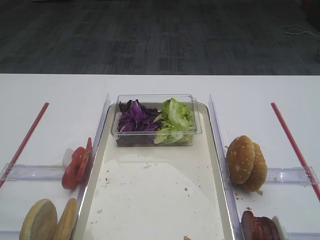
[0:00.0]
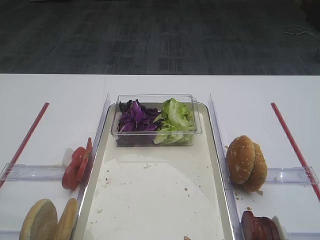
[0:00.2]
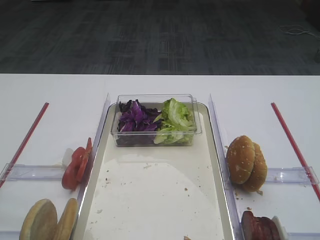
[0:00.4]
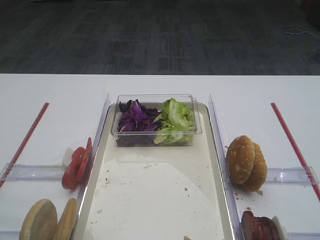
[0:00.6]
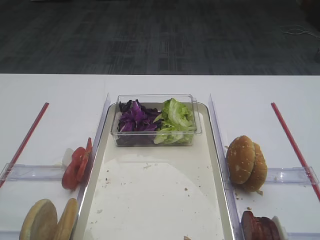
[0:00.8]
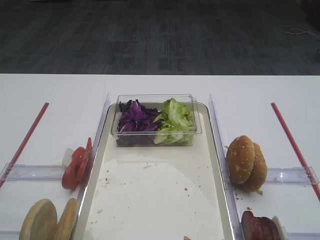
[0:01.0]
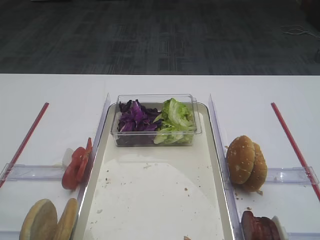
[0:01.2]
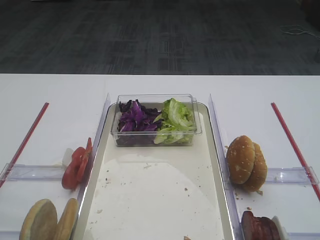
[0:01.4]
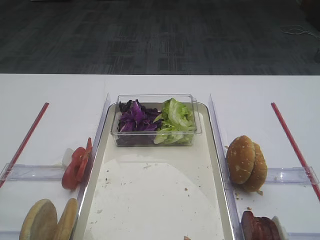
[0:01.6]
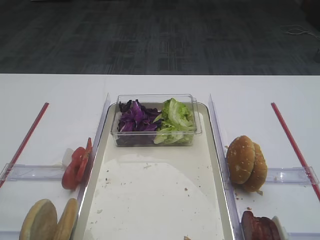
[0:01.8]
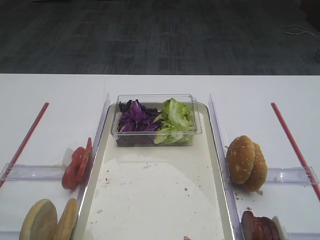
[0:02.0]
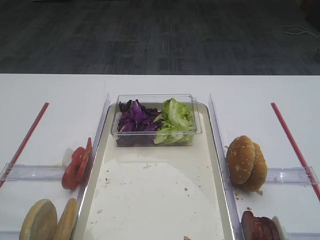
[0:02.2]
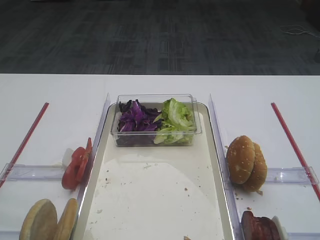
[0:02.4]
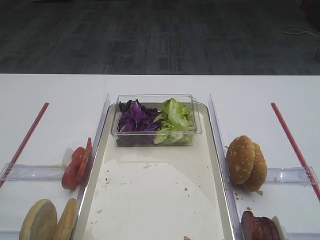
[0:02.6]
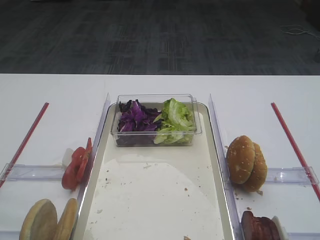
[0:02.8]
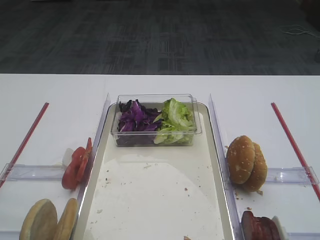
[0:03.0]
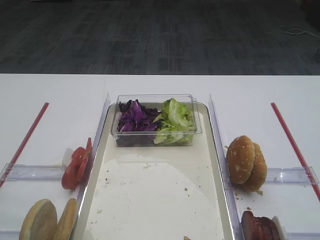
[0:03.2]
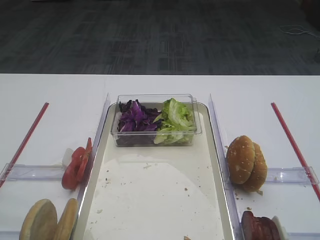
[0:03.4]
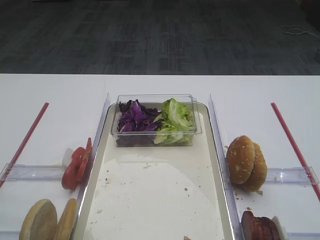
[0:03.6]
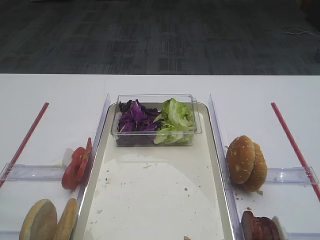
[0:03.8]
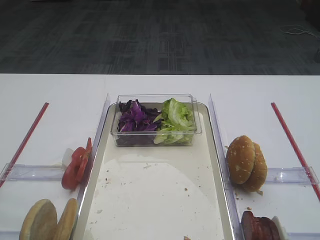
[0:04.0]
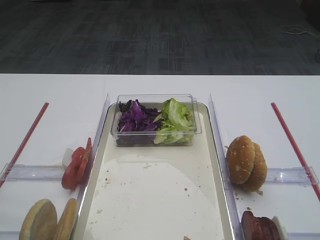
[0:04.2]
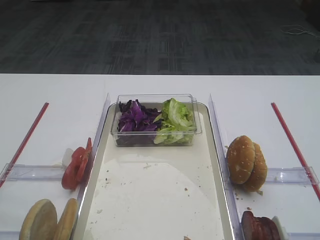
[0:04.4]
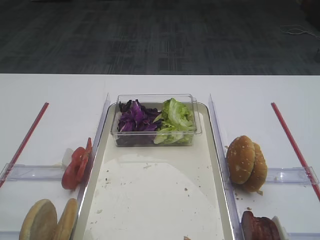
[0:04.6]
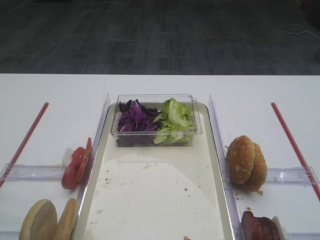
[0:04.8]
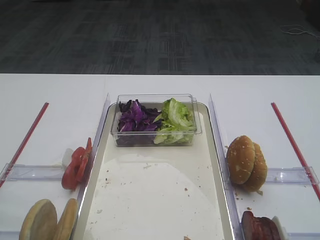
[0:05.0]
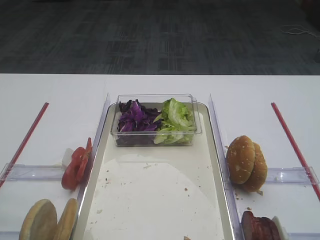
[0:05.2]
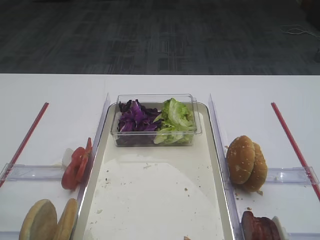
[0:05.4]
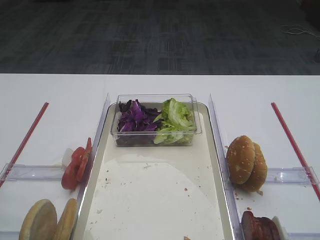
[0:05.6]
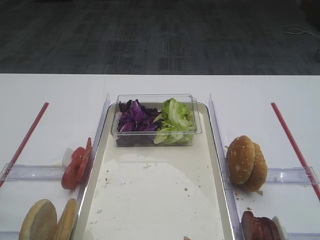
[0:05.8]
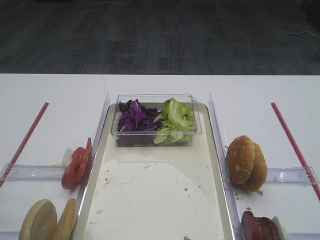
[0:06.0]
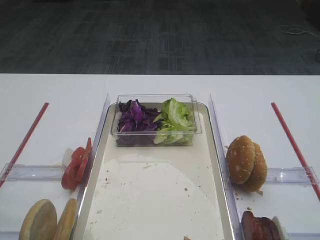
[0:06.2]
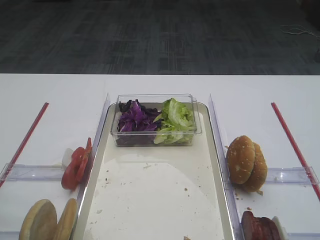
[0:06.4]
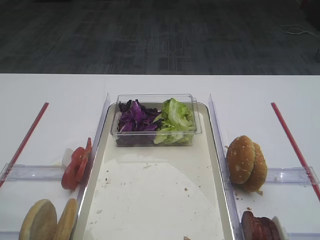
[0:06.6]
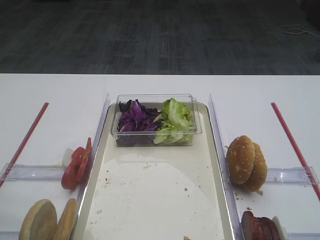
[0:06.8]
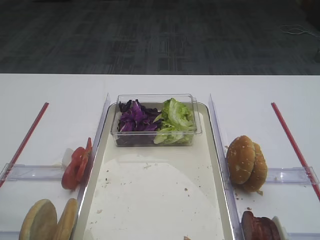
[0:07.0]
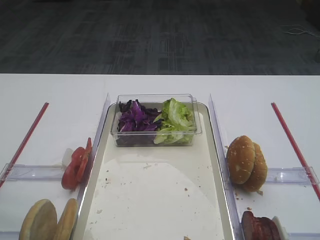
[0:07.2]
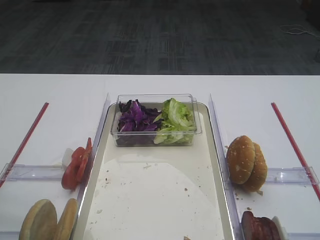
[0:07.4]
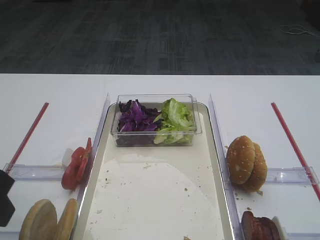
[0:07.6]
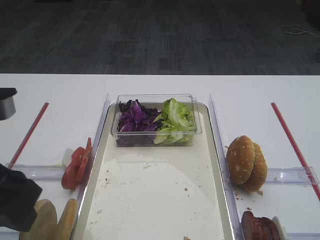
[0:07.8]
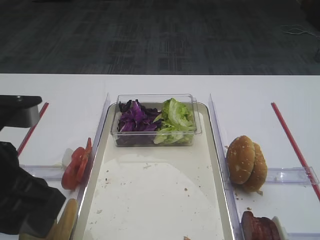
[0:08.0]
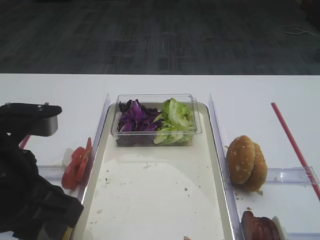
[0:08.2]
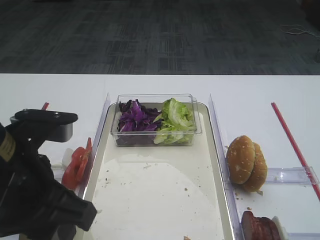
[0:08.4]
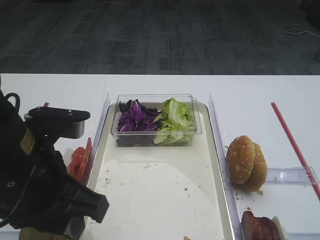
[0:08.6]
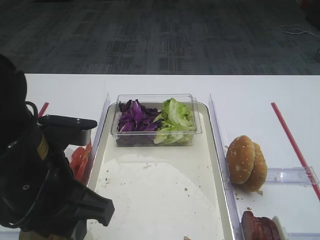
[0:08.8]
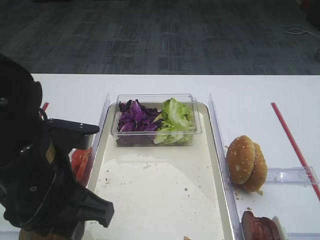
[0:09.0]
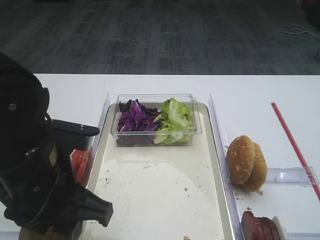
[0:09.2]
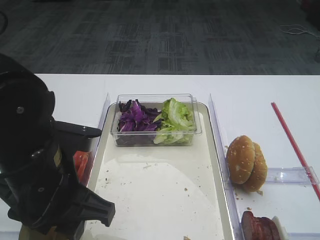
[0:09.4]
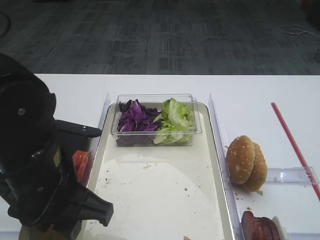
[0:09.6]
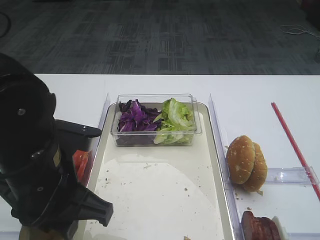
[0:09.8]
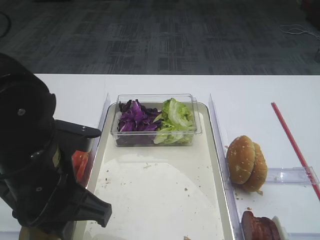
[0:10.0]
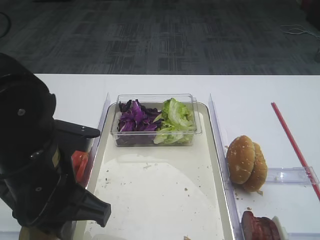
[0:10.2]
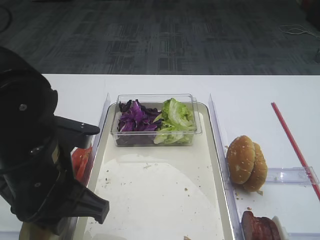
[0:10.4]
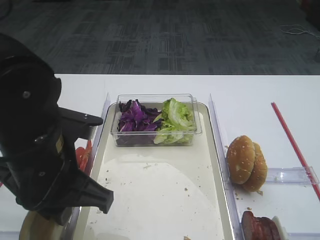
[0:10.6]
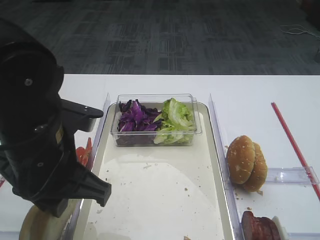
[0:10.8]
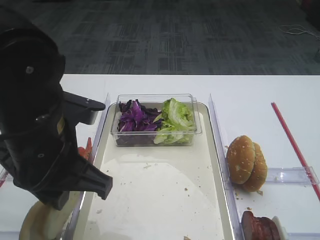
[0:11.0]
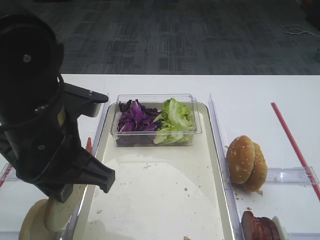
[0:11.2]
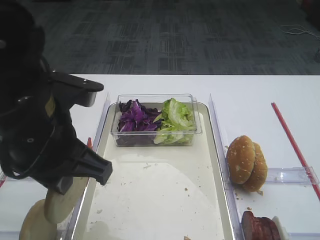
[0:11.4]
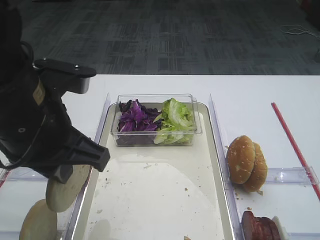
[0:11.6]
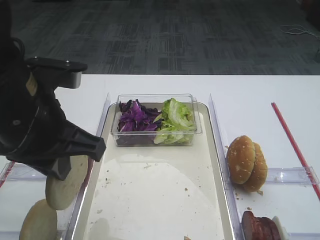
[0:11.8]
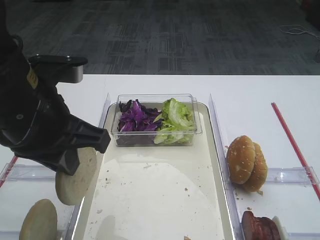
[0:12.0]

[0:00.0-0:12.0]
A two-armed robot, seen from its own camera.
Step, 0:00.0 to 0:11.0: Pick up the bread slice with the left gripper.
0:06.0 to 0:07.6: The left gripper goes about 5 cm to the right.
0:07.6 to 0:09.0: The left gripper goes roughly 10 cm to the right and downward.
0:09.0 to 0:10.4: The left gripper closes.
0:10.4 to 0:12.0: The left gripper shifts some 5 cm upward.

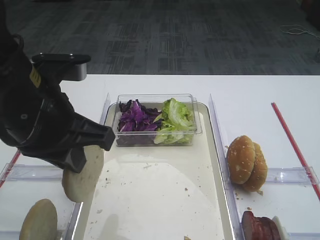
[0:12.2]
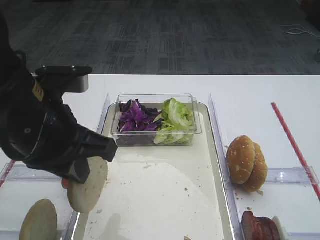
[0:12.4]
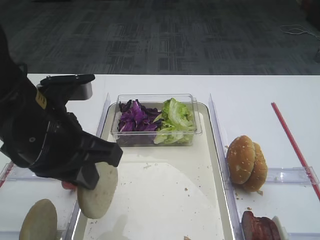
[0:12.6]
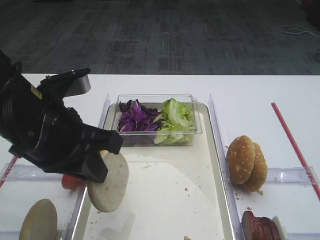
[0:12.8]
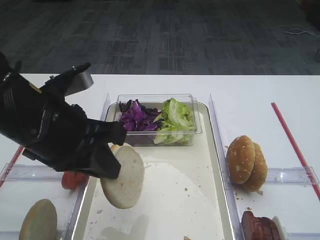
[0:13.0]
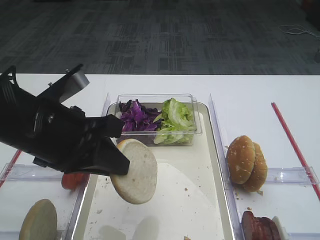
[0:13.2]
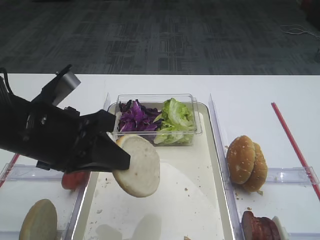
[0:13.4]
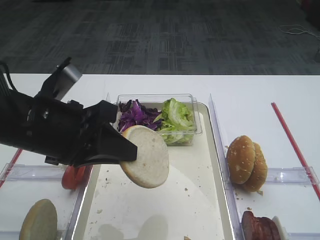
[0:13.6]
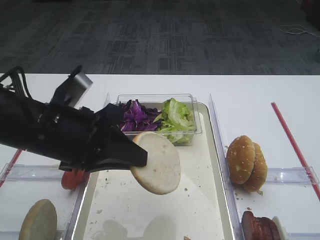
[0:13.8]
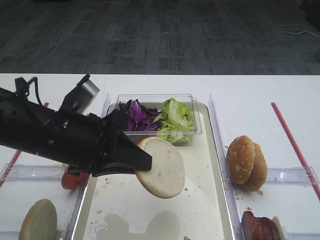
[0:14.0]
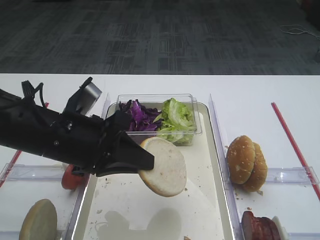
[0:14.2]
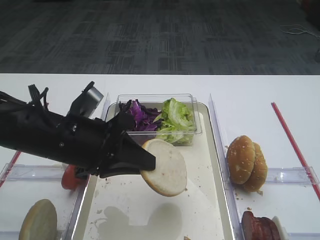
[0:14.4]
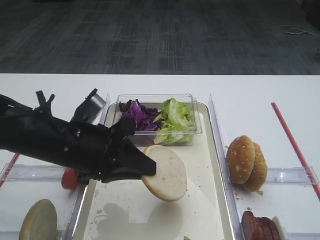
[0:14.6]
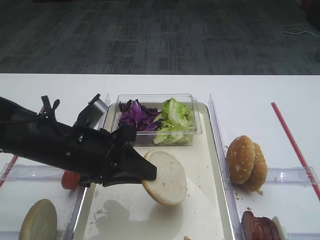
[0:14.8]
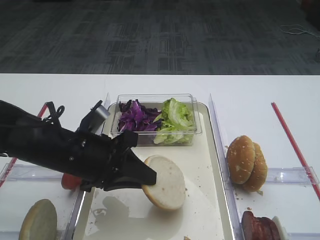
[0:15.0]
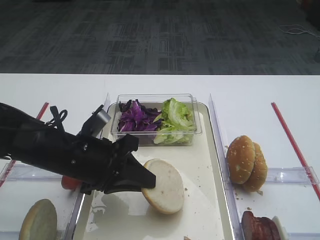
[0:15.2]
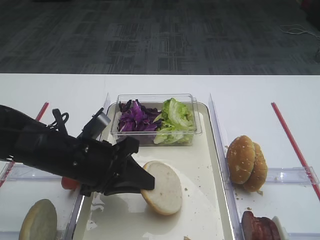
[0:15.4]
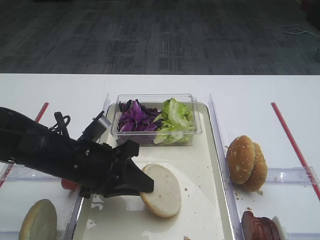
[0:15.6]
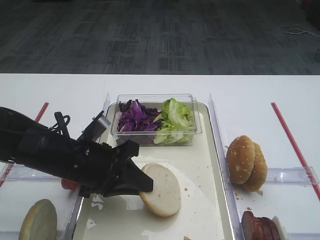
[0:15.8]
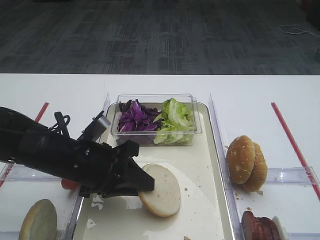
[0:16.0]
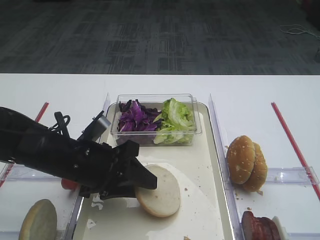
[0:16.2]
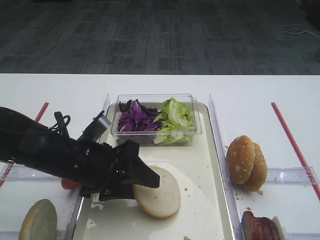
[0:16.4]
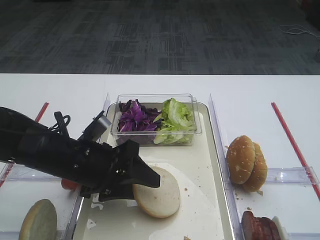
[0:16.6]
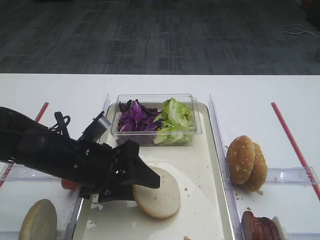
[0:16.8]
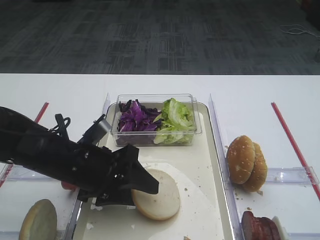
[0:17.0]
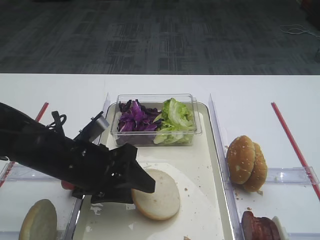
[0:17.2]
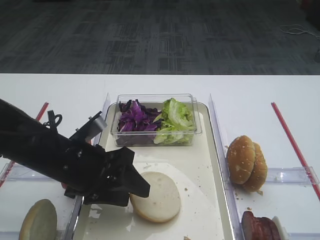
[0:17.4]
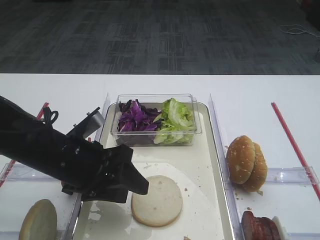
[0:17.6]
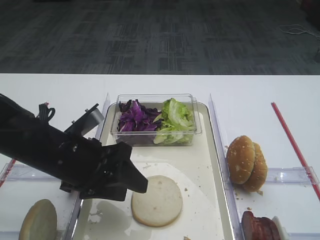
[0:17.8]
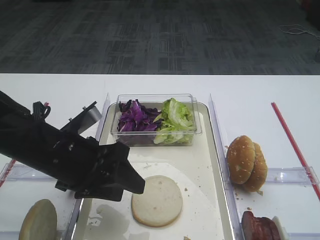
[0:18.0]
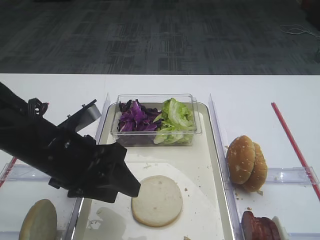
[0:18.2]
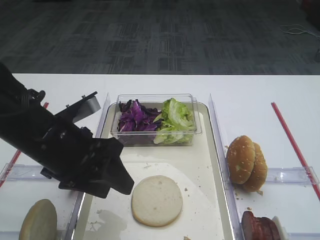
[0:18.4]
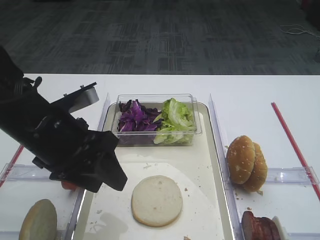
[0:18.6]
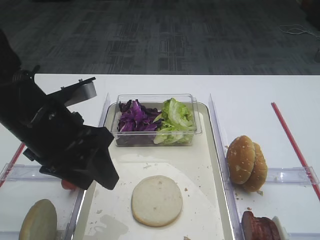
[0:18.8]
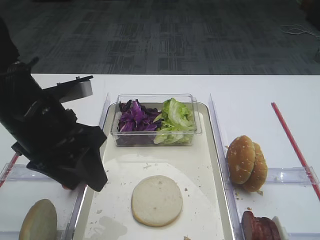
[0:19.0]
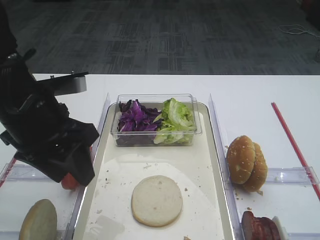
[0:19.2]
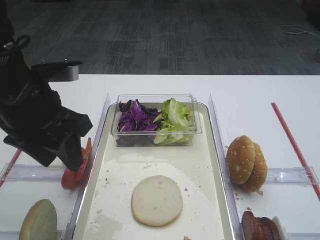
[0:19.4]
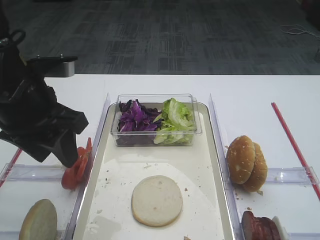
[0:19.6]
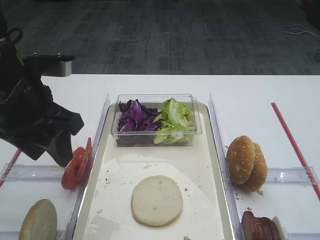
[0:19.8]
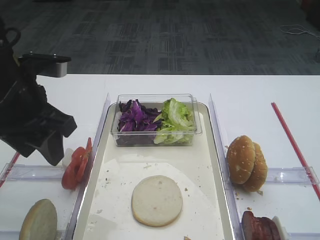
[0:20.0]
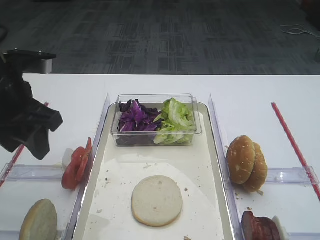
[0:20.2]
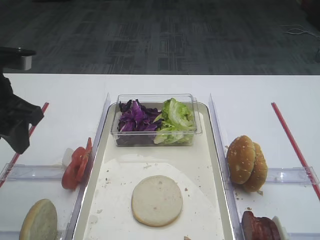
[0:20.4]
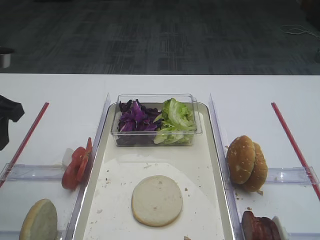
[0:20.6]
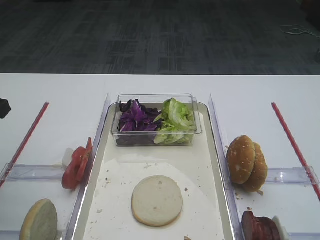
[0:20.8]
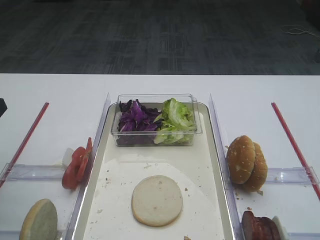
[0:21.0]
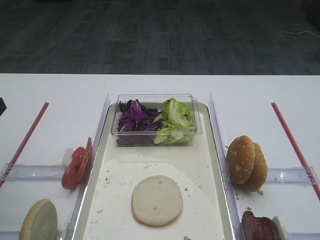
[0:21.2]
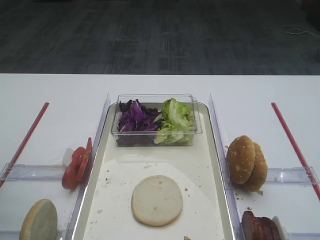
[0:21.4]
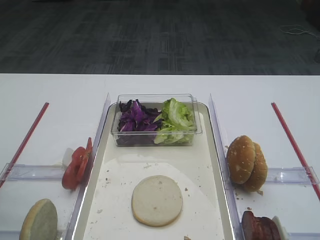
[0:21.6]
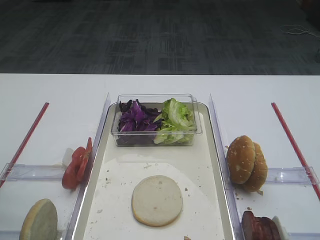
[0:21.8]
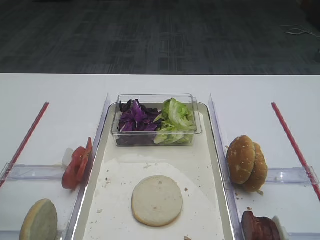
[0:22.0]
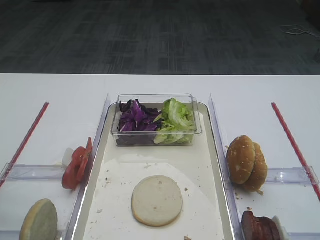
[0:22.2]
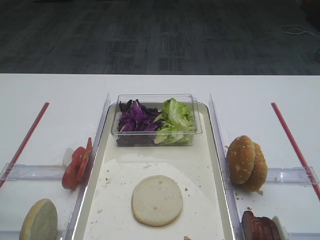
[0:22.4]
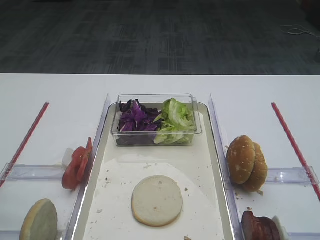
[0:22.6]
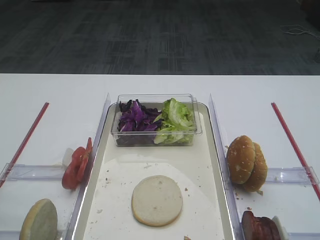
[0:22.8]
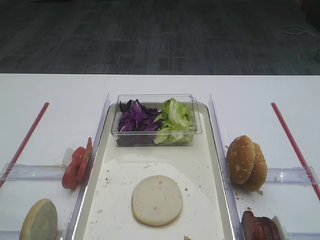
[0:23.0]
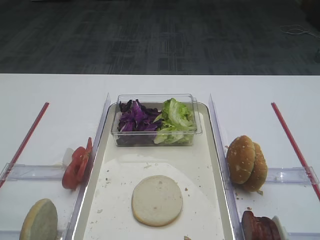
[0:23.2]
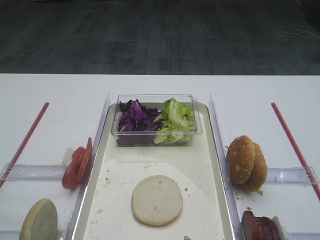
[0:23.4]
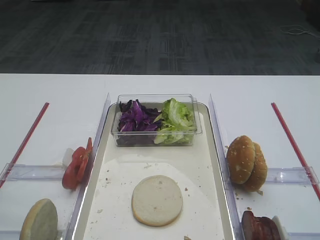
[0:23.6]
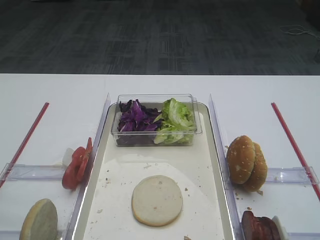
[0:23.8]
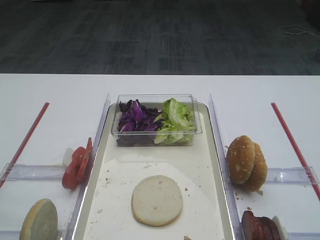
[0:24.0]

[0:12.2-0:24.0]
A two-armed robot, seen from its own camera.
Step, 0:12.2 to 0:18.4: Place the bread slice on the tray with the left gripper.
0:13.6 to 0:15.2: The left gripper is displaced downward by about 10 cm.
0:15.2 to 0:16.6: The left gripper opens its fingers.
0:16.6 to 0:18.2: The left gripper ends up roughly 5 cm from where it was.
0:18.2 to 0:19.6: The left gripper shifts approximately 10 cm upward.
0:19.6 to 0:21.0: The left gripper goes about 10 cm to the left.
